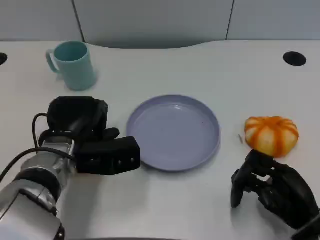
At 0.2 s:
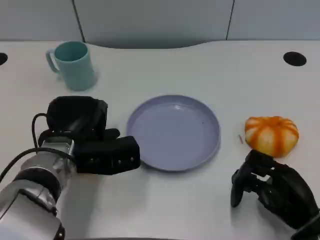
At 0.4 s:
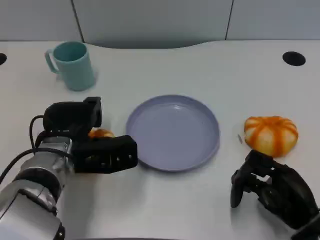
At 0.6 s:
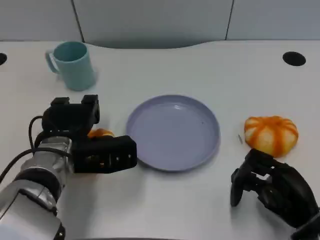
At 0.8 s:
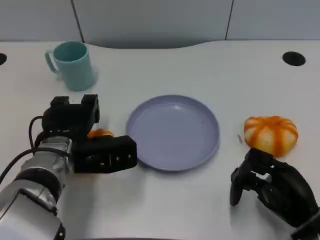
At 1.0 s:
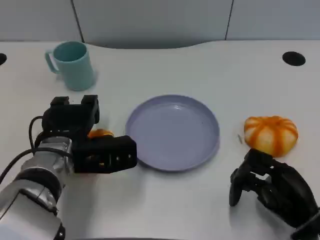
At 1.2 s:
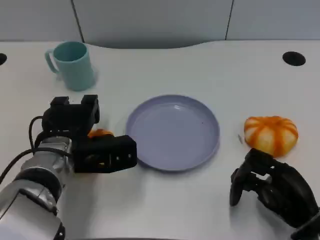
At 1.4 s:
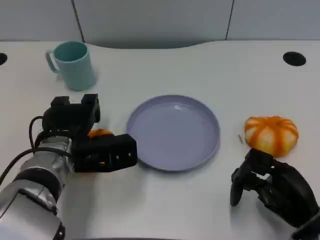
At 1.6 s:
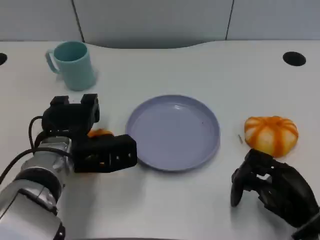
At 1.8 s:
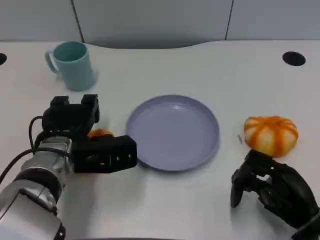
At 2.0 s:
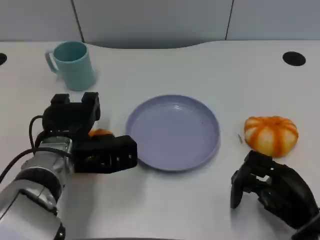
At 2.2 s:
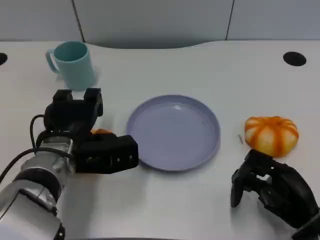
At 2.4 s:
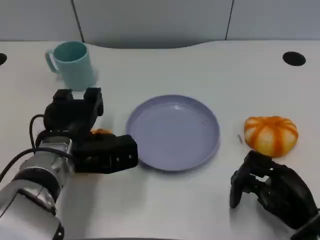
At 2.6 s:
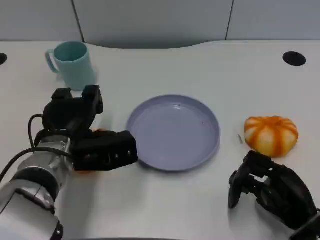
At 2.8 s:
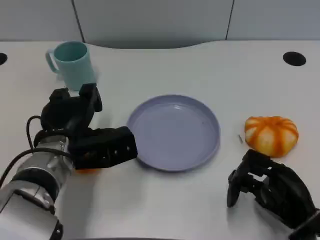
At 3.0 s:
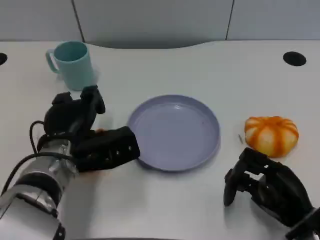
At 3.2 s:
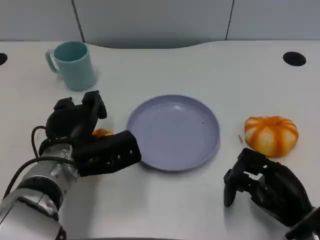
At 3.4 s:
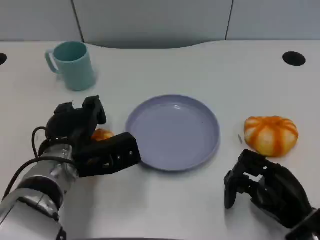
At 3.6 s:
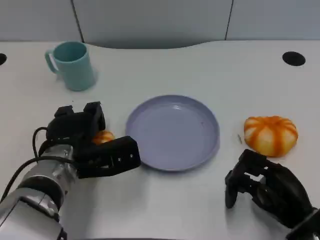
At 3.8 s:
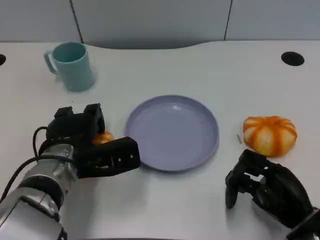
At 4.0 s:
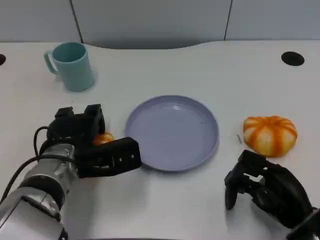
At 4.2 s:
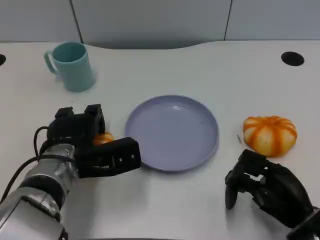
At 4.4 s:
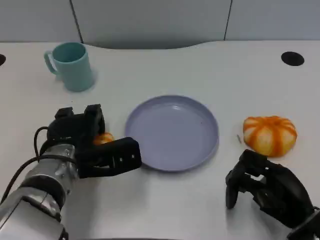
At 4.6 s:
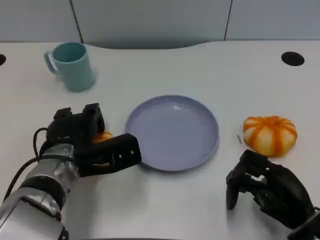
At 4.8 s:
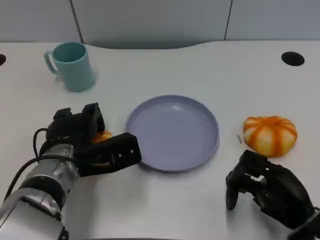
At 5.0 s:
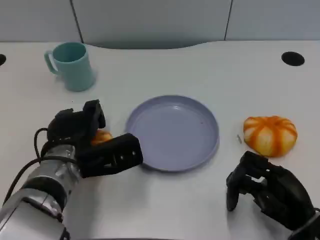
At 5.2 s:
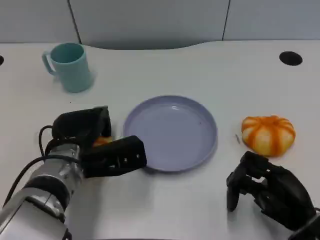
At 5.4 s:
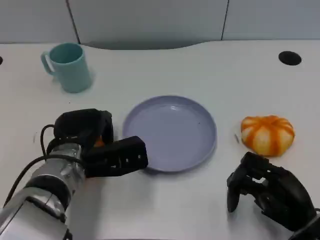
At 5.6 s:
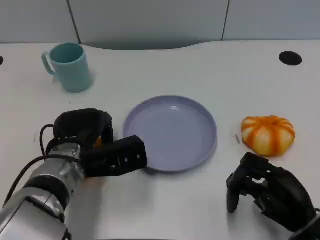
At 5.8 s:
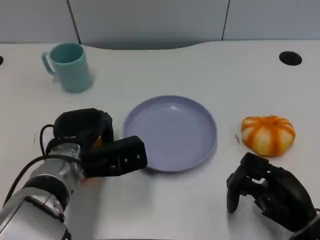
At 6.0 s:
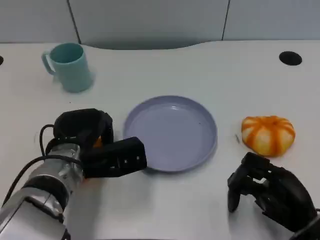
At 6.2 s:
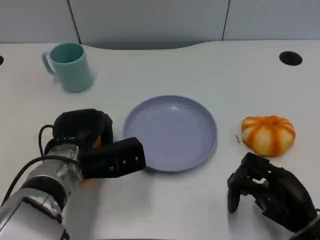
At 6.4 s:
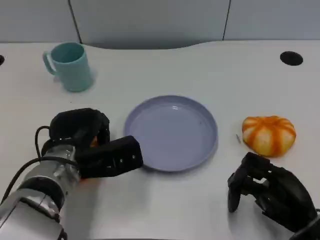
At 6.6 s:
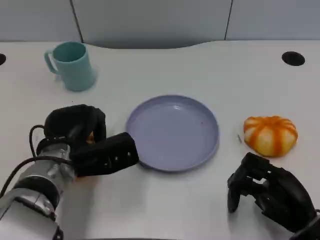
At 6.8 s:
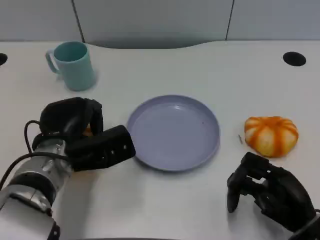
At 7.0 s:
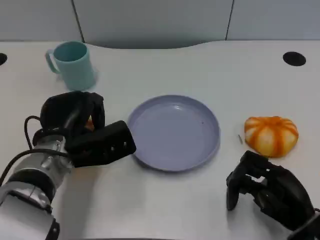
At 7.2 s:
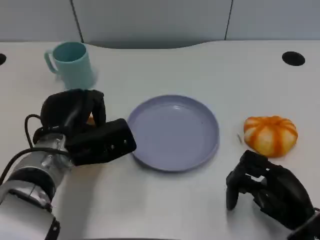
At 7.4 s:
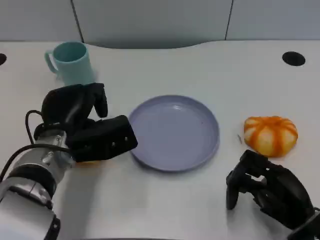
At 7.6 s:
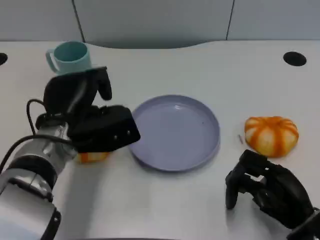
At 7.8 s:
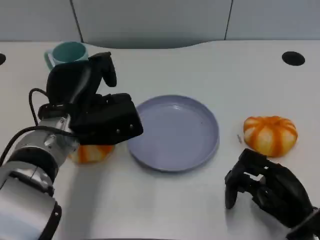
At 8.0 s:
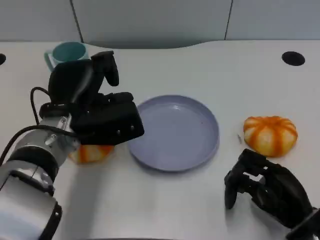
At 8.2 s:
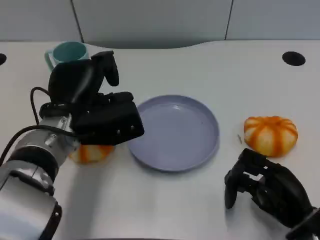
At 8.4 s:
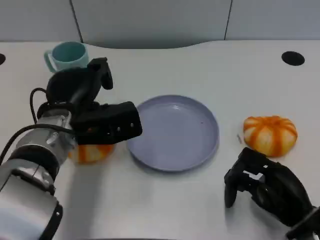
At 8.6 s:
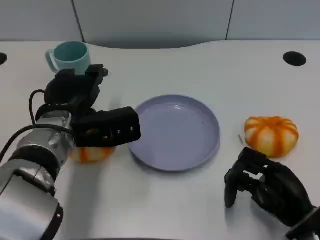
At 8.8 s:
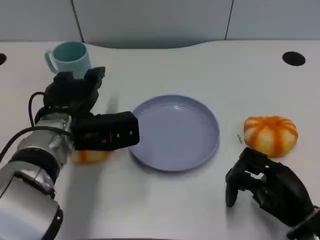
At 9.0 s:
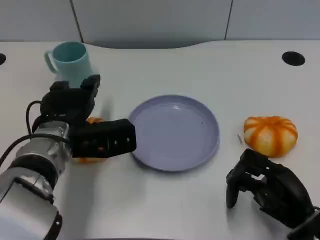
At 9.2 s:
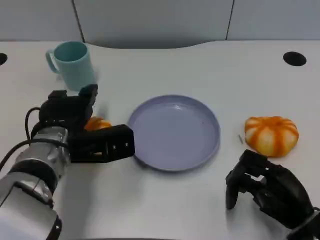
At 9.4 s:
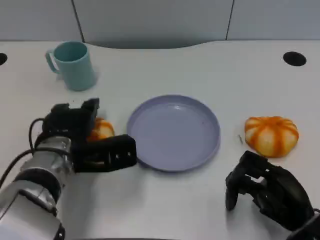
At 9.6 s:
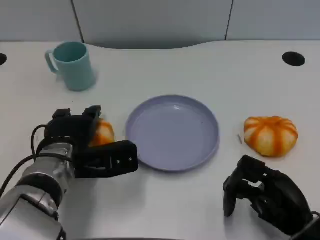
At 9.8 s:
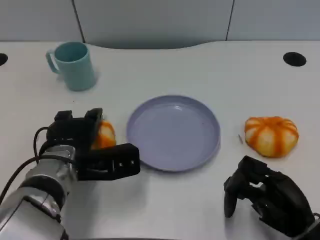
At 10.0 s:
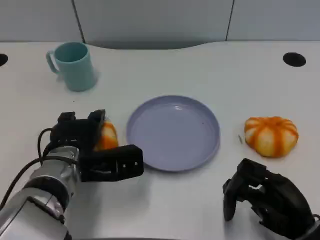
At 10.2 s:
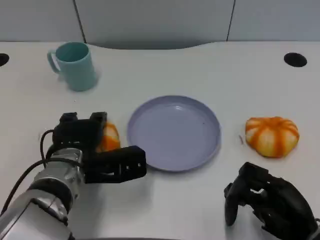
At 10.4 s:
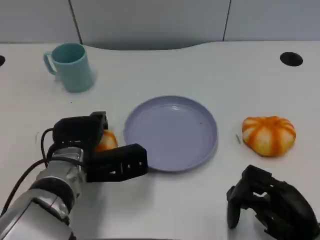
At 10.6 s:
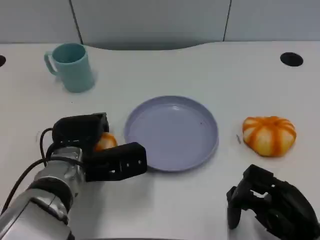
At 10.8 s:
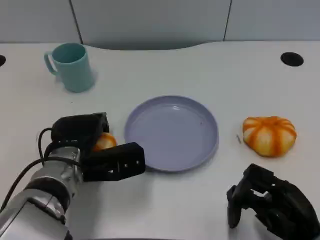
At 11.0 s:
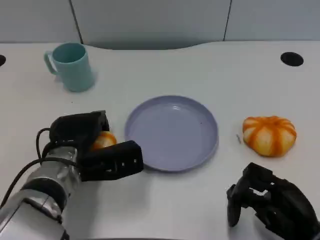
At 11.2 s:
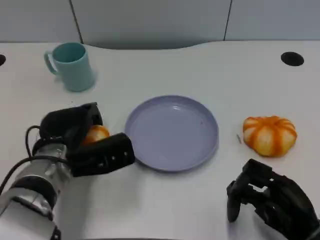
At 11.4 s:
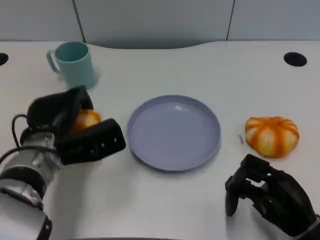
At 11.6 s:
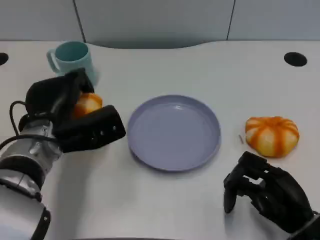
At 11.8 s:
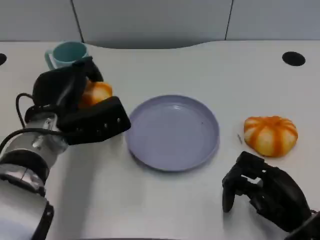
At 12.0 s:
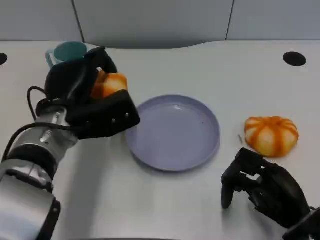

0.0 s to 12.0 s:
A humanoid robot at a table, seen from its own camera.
Task of the whole recording: Grasp the bread from the table and place it into the plate.
0.0 to 4.4 s: The hands make only small movements.
4.4 to 6.0 s: The hands stay close to where they were, moving slightly.
10.4 to 12.0 s: The left hand travels upward by about 5 cm.

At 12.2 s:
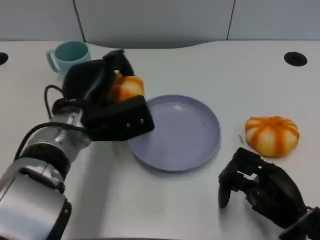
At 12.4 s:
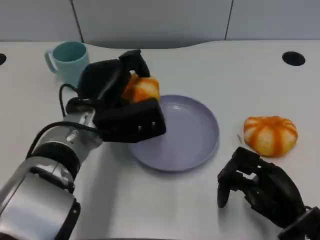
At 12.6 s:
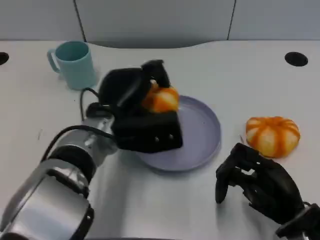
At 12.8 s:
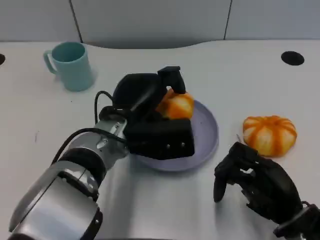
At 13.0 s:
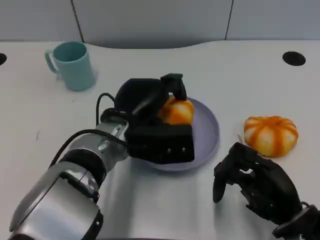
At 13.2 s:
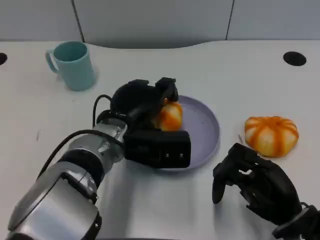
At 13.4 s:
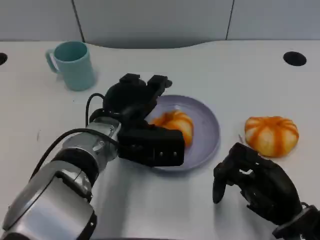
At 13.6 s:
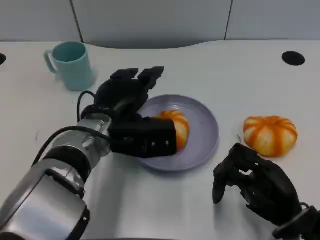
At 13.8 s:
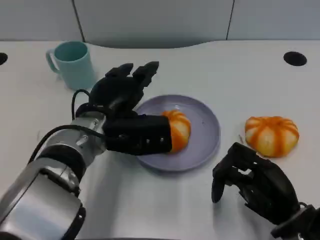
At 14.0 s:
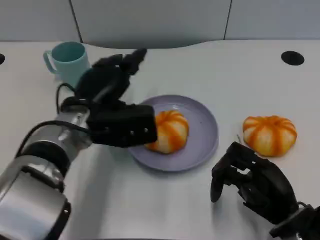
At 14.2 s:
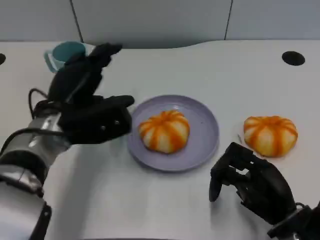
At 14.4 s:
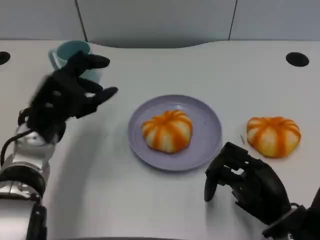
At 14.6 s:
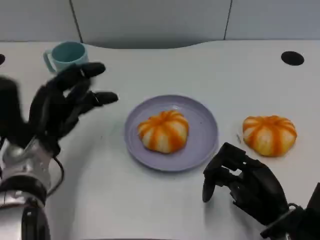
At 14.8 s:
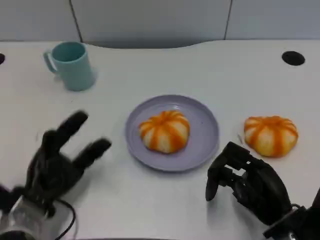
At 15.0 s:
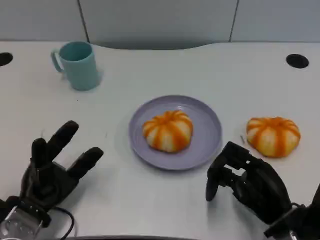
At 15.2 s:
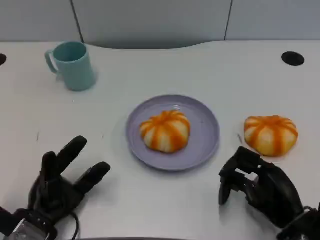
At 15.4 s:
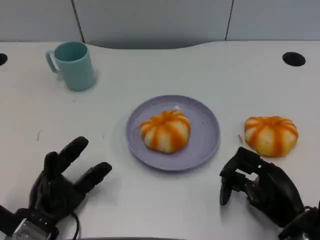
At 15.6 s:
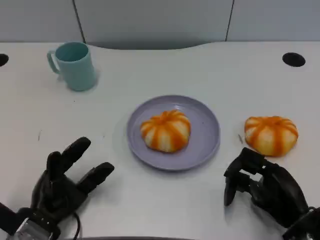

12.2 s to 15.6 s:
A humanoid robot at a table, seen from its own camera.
Task of the whole recording: Grasp the bread from the table and place it into the plate.
13.8 to 15.6 s: The left hand heads downward, to the left and backward, covering some 20 cm.

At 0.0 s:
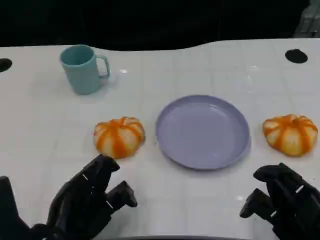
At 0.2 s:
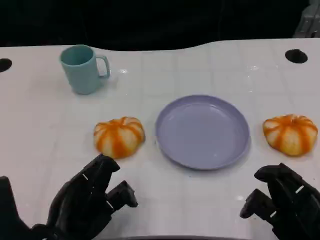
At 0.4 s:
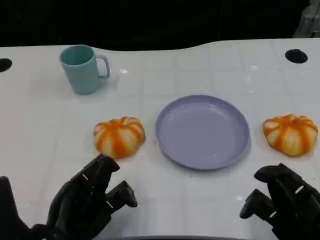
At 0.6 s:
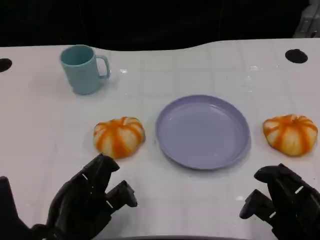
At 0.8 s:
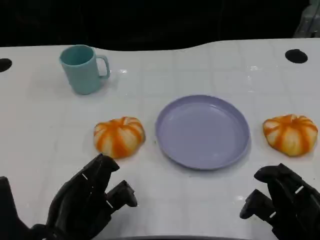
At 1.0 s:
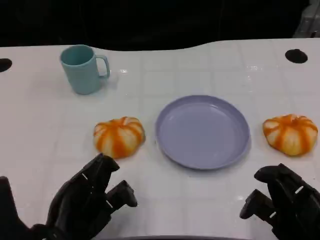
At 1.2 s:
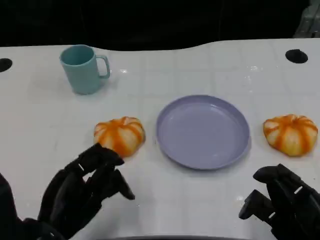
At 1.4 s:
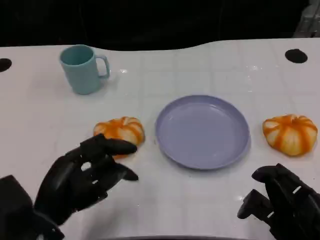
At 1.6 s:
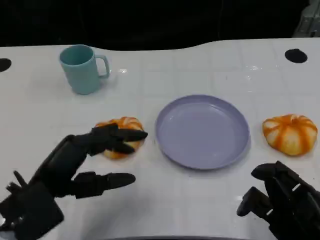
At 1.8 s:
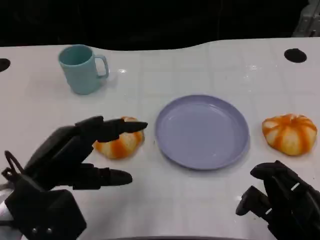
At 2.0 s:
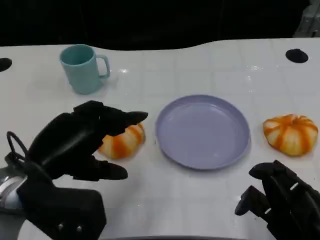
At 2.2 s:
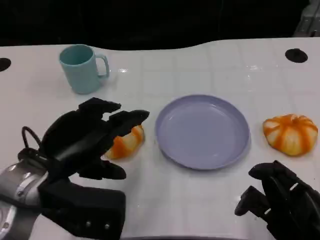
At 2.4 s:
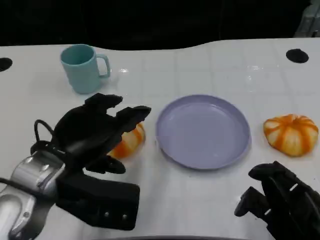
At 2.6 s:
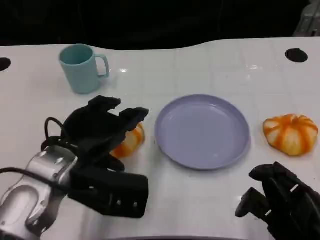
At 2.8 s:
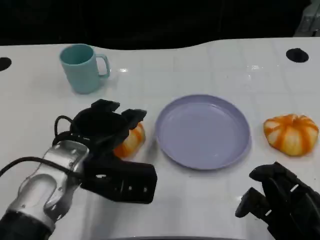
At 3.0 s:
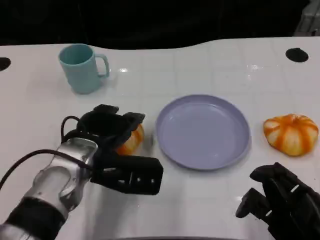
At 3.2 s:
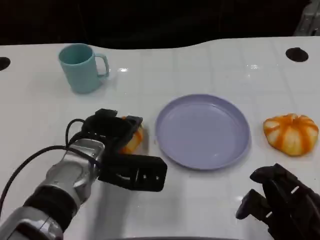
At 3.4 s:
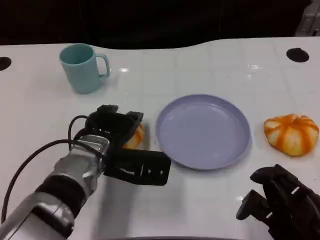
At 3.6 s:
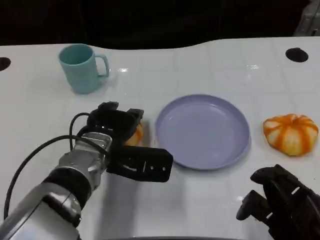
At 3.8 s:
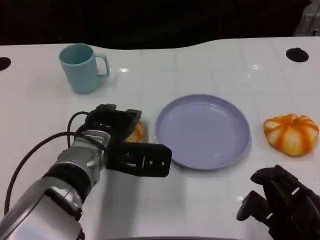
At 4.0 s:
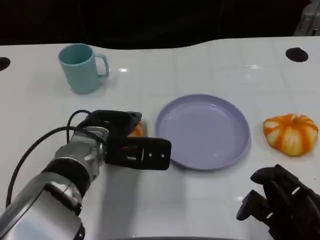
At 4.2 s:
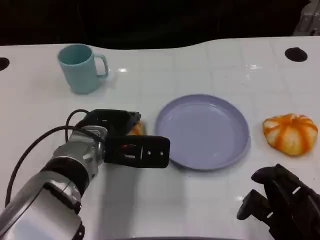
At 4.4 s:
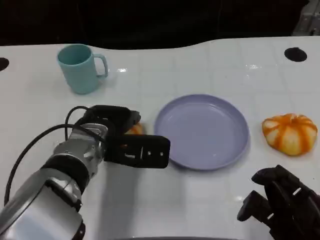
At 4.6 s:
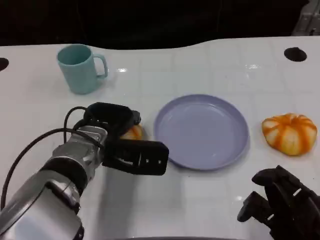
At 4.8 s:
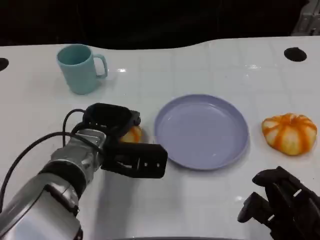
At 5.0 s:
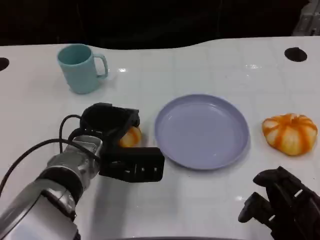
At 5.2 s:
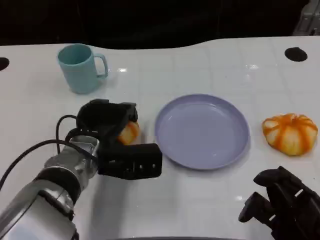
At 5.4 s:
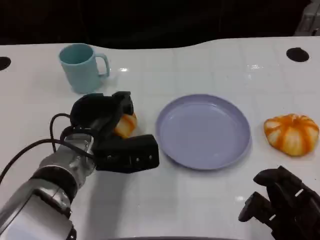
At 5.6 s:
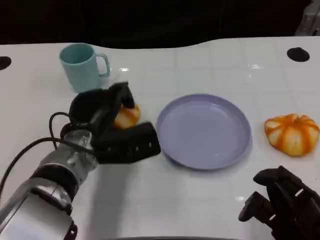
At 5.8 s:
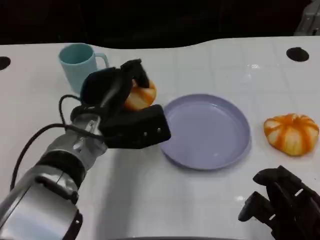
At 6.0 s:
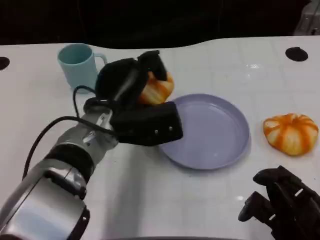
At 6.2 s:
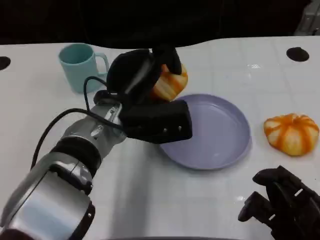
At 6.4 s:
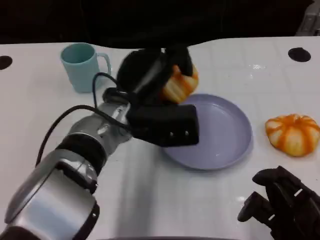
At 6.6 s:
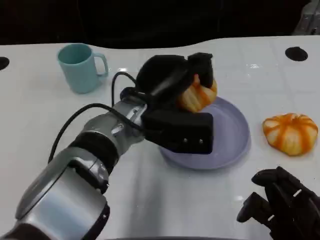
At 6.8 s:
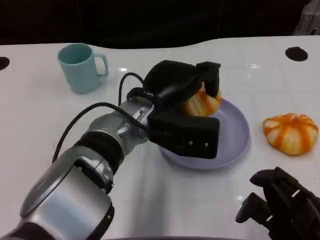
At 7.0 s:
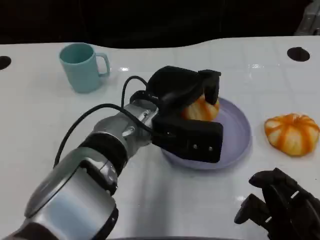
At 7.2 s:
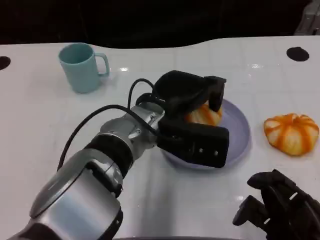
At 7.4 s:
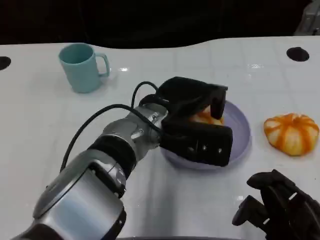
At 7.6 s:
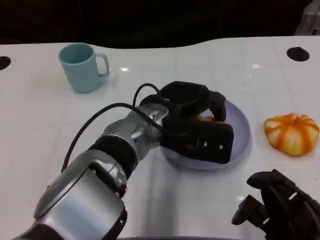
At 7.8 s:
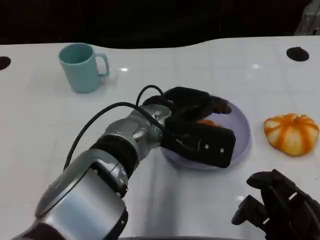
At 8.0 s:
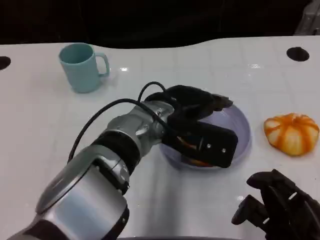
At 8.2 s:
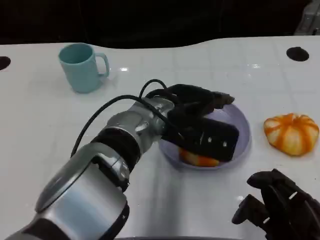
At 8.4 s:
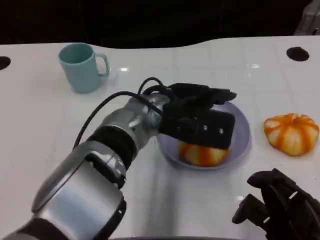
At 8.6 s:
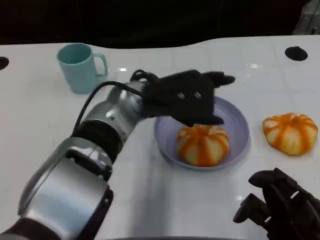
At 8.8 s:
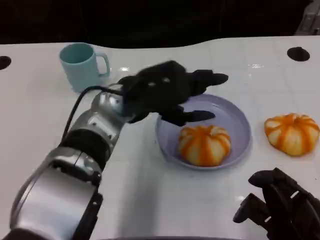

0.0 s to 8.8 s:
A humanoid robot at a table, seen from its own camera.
Task of the whole recording: Grasp the bread from the table and place it into the plate.
1.4 to 3.0 s: The left hand travels forward and to the right by approximately 10 cm.
3.0 to 4.4 s: The hands stay close to where they were, moving slightly.
5.8 to 7.4 s: The left hand is displaced to the right by approximately 10 cm.
7.4 to 8.8 s: The left hand shifts about 5 cm to the left.
